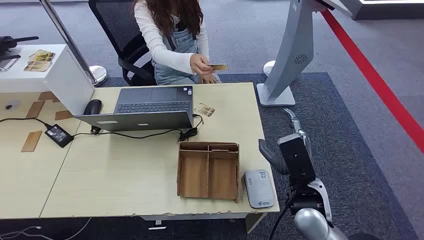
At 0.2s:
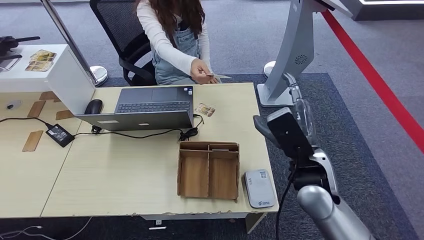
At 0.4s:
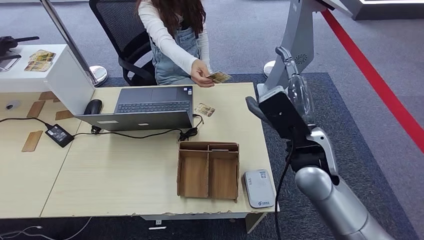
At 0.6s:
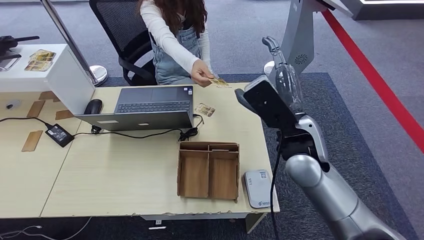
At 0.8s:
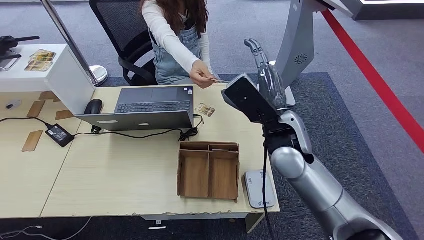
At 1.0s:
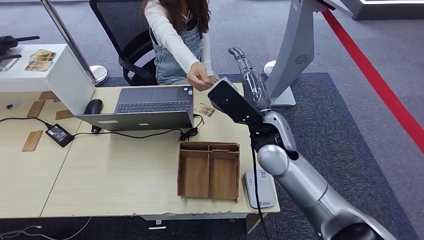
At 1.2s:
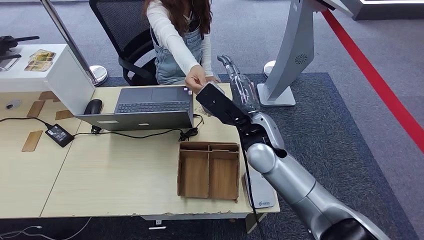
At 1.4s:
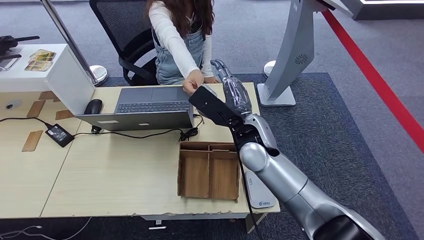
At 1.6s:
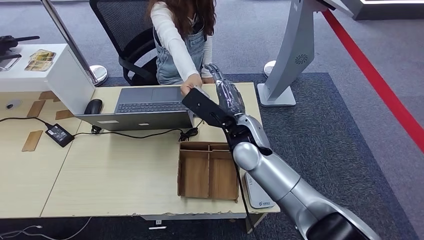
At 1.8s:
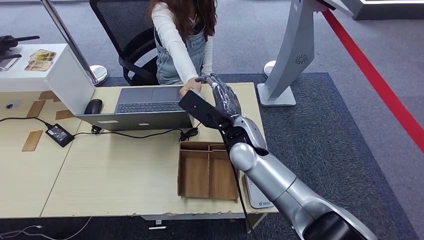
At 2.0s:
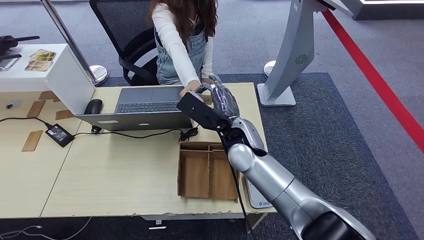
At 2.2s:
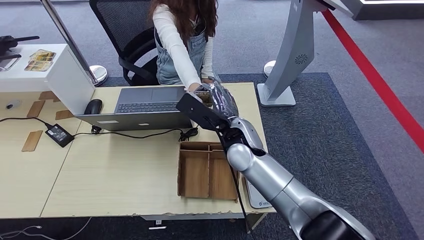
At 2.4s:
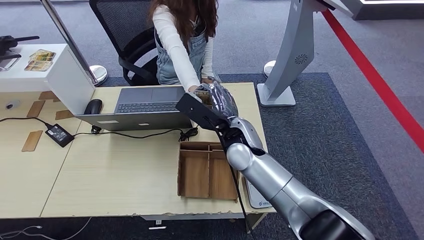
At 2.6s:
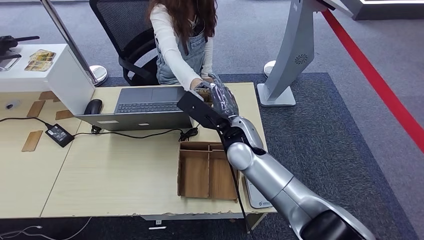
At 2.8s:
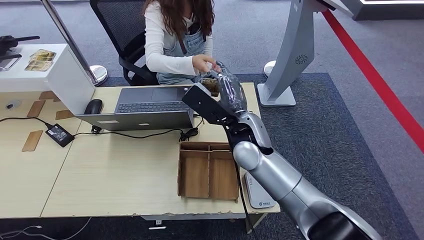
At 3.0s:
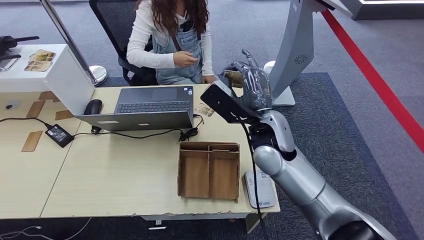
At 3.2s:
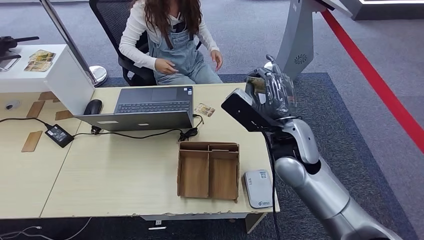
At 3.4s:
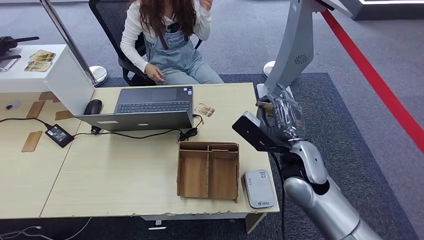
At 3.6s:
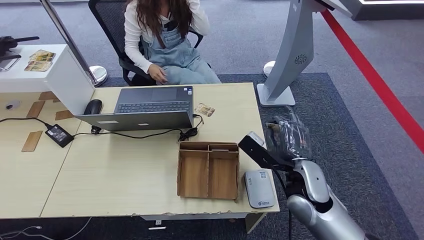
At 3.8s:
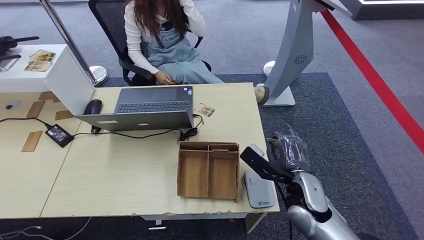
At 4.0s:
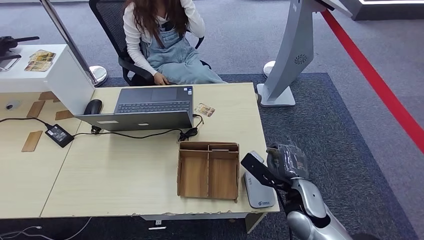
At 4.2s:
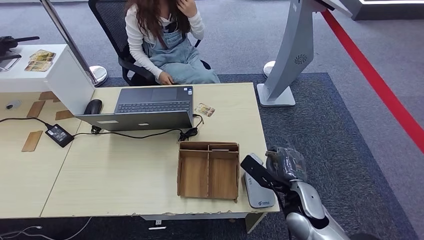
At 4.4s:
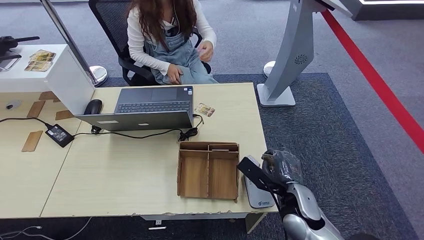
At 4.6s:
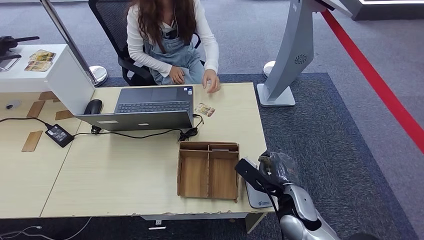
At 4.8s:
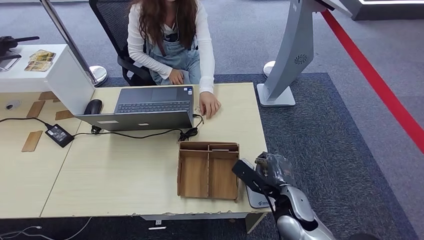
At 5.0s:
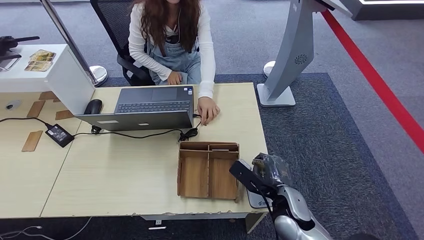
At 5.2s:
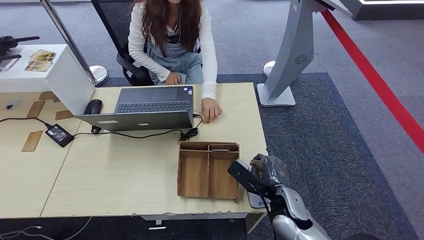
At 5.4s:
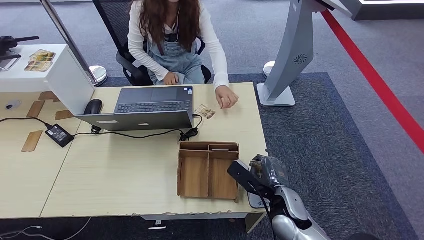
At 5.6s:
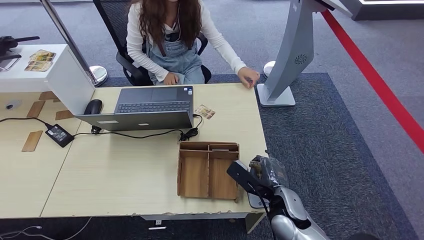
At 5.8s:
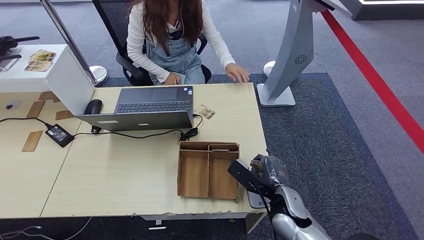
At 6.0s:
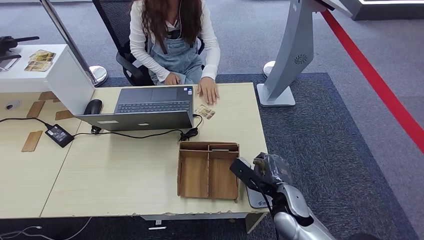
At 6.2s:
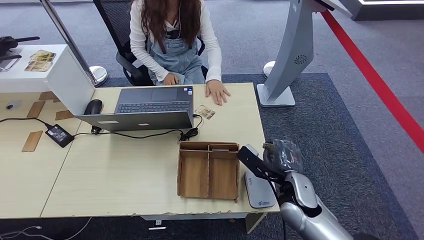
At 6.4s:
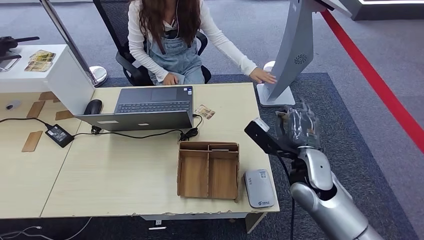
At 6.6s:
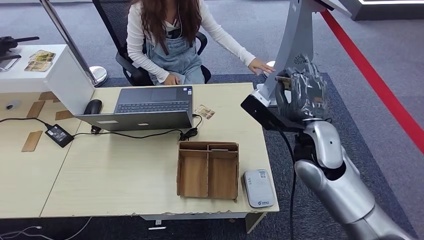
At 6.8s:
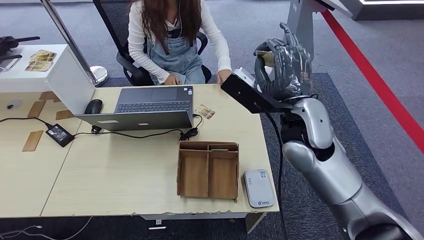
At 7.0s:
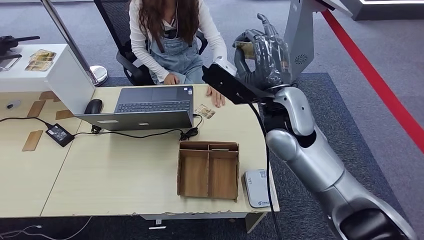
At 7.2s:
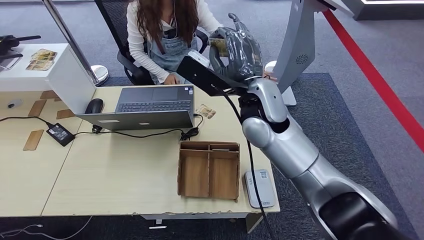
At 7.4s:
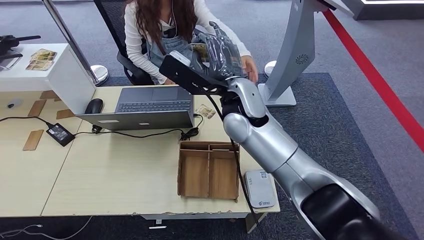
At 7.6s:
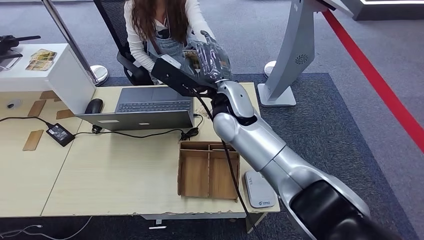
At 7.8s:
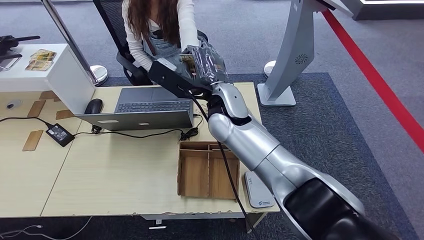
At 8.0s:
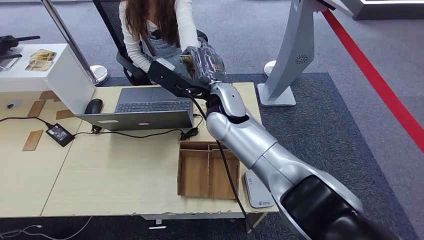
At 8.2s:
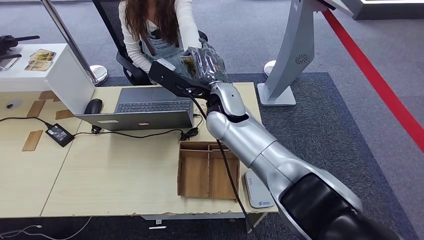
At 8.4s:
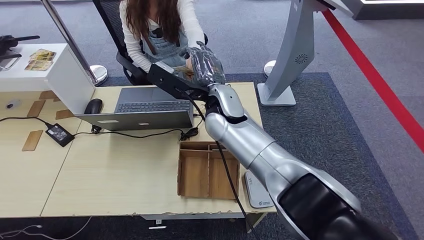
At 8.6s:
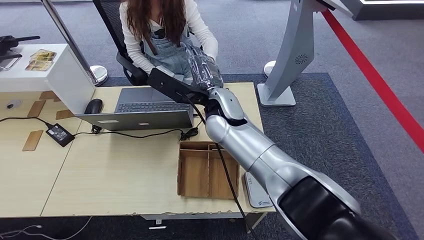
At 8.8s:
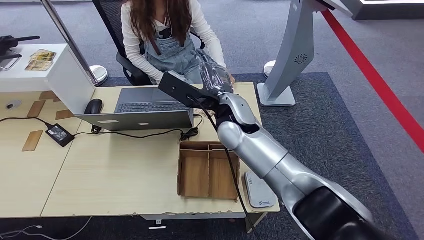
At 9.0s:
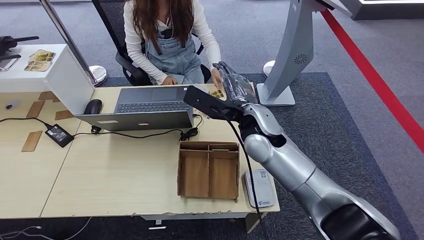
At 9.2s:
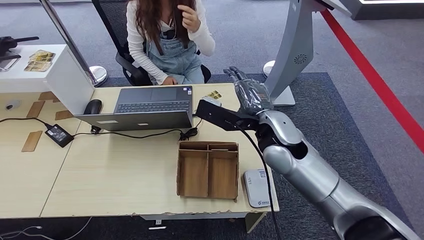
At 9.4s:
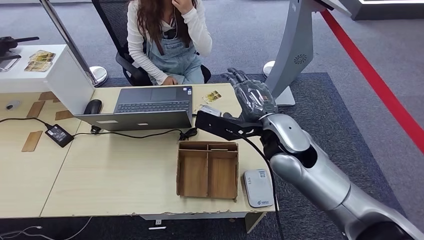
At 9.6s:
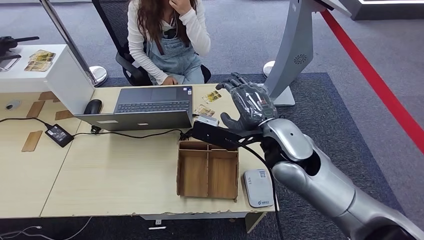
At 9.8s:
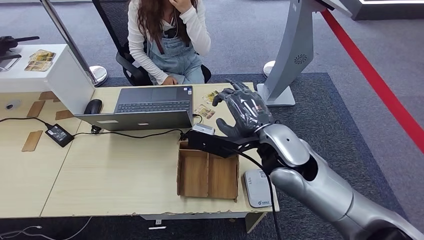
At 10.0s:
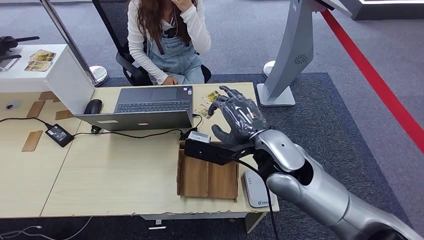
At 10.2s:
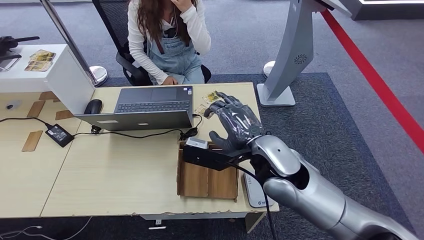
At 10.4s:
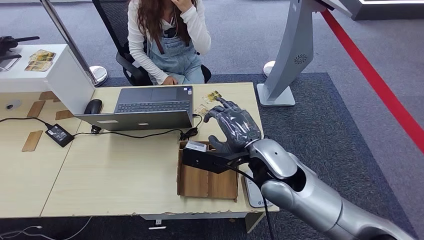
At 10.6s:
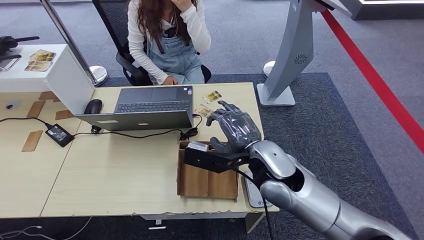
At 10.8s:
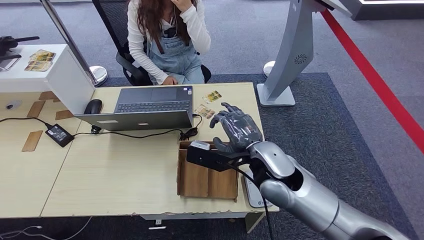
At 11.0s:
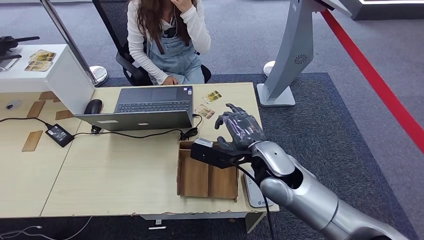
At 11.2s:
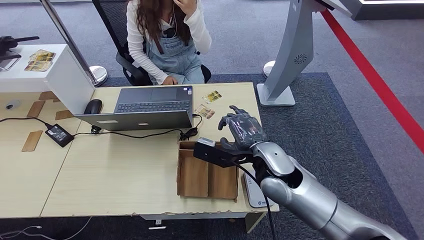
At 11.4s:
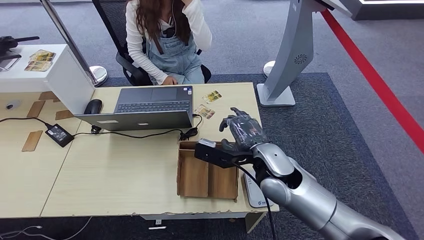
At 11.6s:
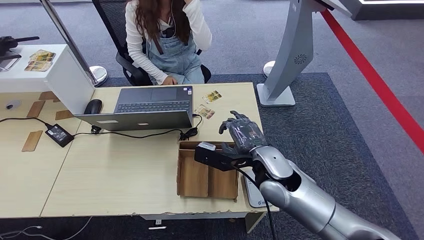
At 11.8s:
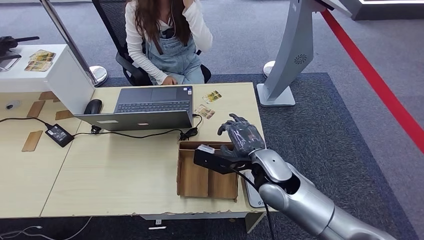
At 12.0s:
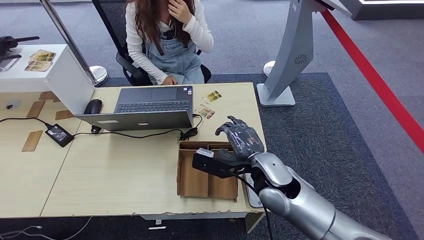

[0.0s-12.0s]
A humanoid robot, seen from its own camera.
Step, 0.0s to 2.8s: Take the ID card from the person's hand.
Step, 4.8s to 6.2s: Place the ID card on the card reader.
Step, 6.6s to 9.0s: Hand the ID card to the person.
1.6s to 3.0s: The right hand moves approximately 5 cm.
3.0s to 4.4s: The right hand is displaced downward, backward and to the right by approximately 20 cm.
4.4s to 6.0s: The hands make only small movements.
6.0s to 7.6s: The right hand travels upward, to the left and forward by about 30 cm.
7.6s to 9.0s: The right hand is displaced to the right by approximately 5 cm.
9.0s to 10.4s: The right hand goes about 10 cm backward.
10.4s to 12.0s: The right hand goes roughly 5 cm downward.

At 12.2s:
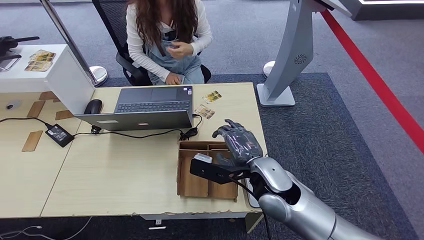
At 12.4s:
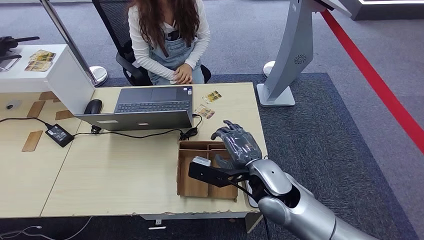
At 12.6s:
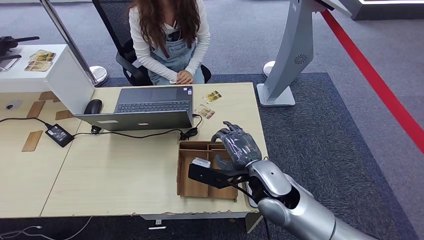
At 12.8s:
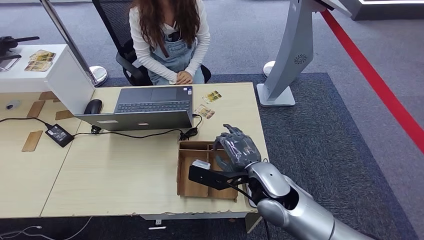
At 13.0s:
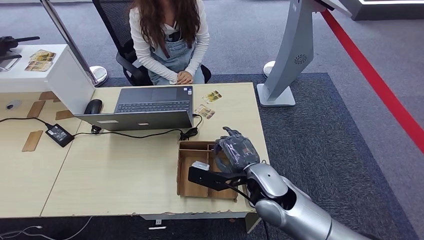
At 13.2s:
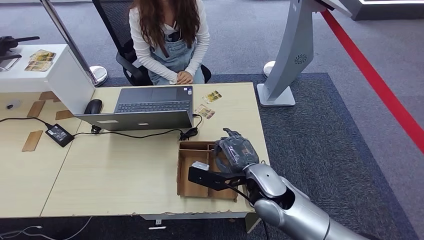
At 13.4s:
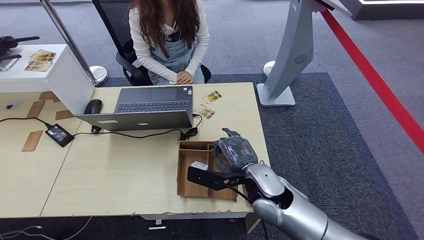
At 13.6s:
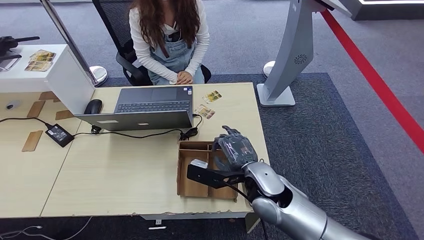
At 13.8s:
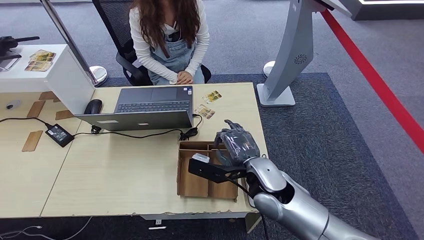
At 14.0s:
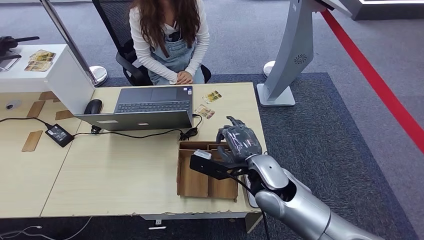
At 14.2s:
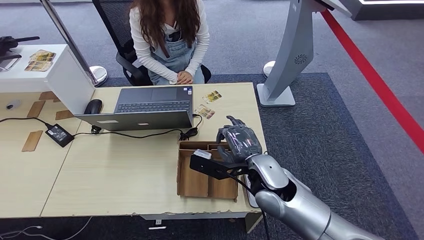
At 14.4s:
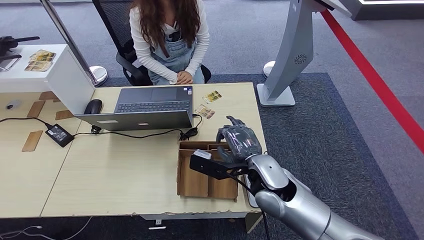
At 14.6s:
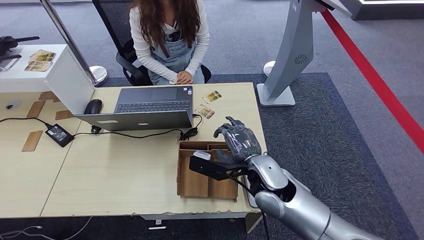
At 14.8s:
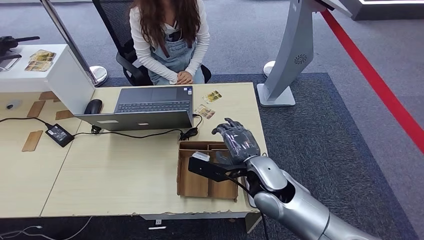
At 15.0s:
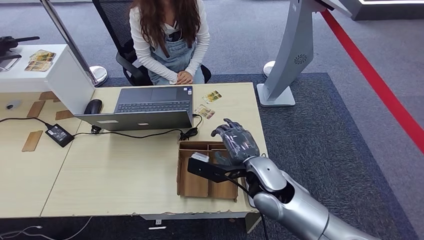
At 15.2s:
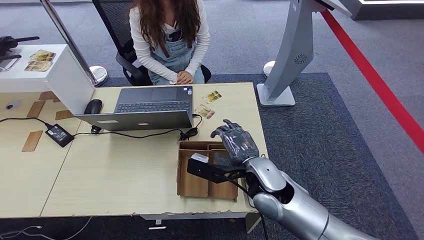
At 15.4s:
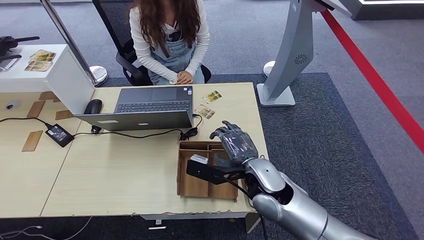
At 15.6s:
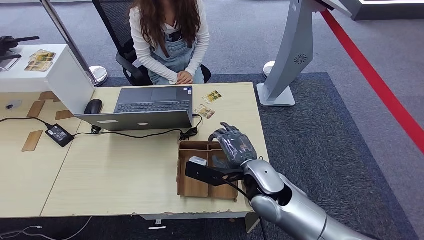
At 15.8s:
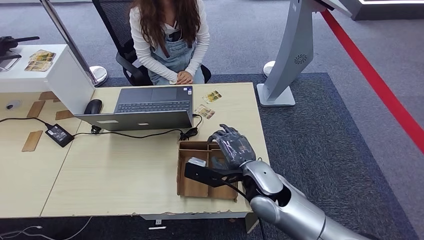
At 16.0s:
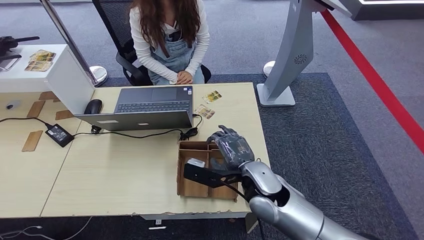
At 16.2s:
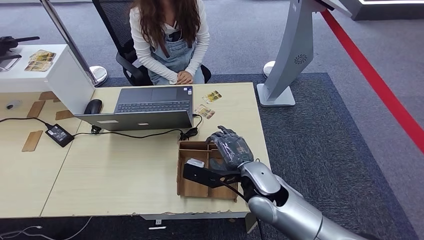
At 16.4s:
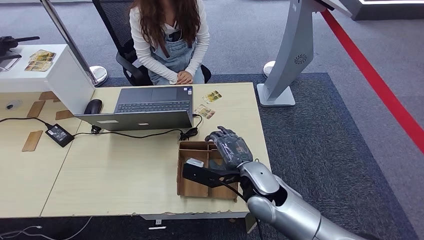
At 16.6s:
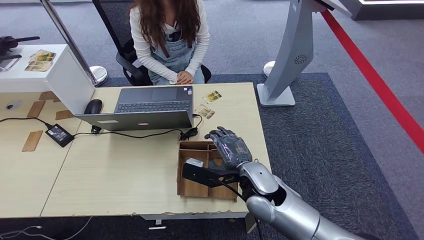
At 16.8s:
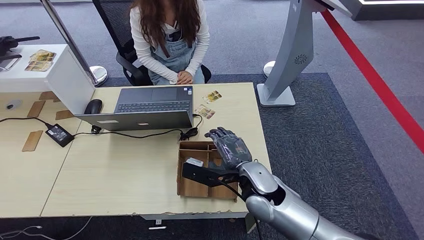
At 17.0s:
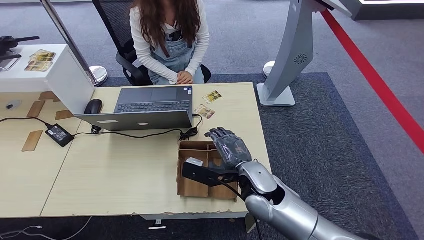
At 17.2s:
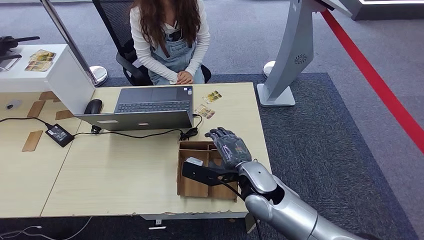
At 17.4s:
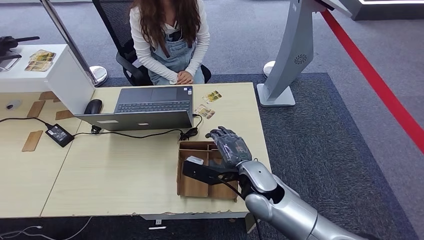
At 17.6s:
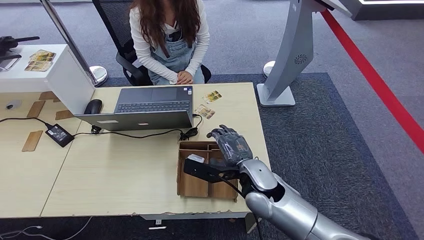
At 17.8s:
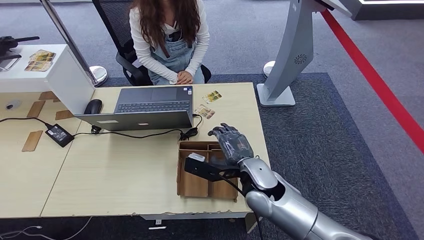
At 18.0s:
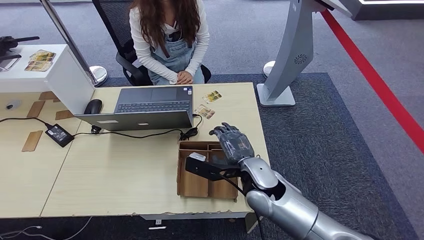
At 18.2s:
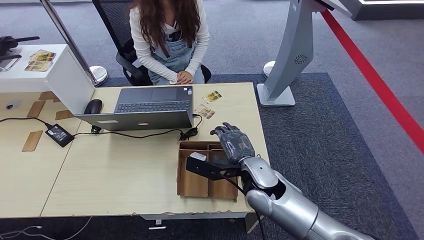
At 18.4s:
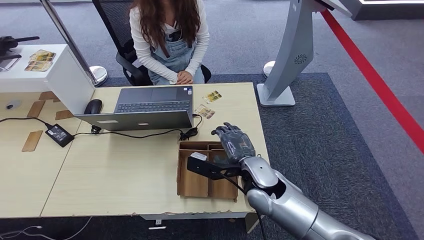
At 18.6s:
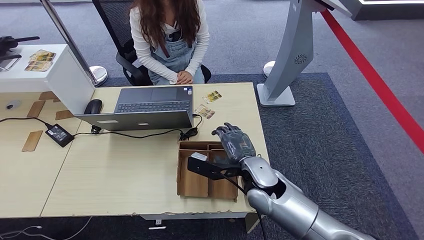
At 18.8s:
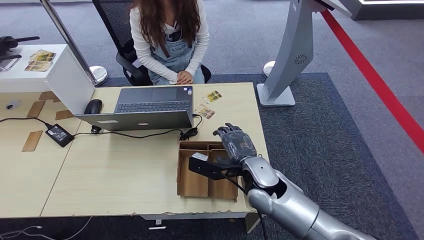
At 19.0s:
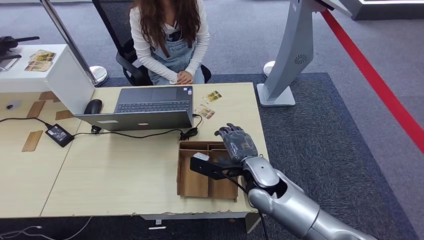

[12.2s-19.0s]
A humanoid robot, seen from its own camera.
12.2s to 16.2s: The hands make only small movements.
16.2s to 17.6s: The two hands keep their place.
17.6s to 19.0s: There are only small adjustments of the hands.
